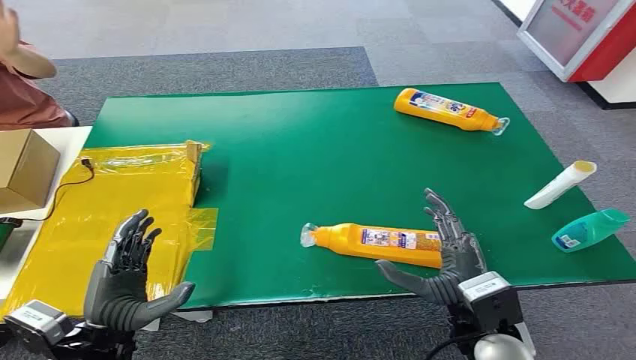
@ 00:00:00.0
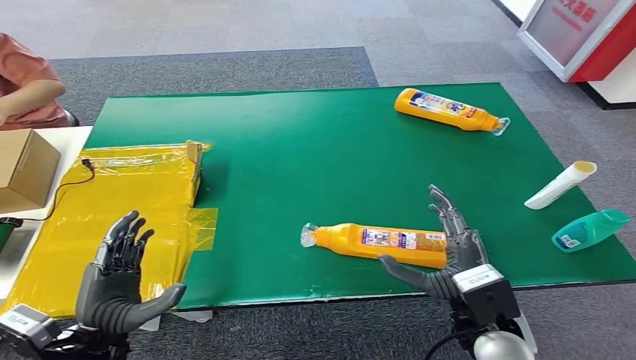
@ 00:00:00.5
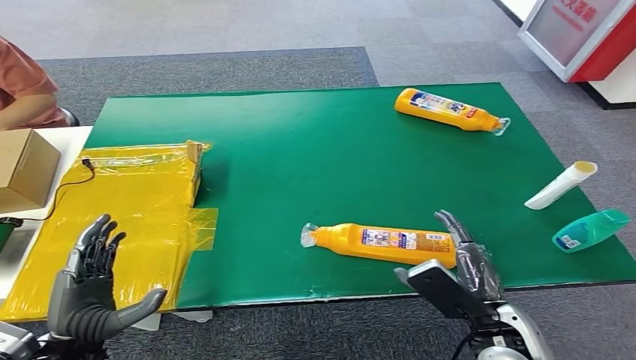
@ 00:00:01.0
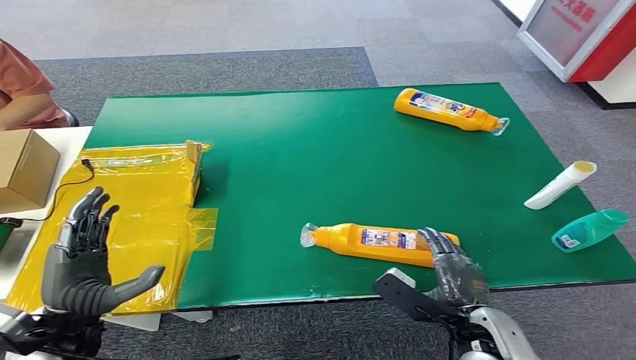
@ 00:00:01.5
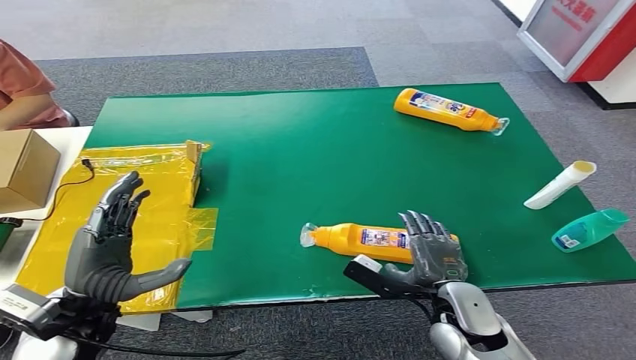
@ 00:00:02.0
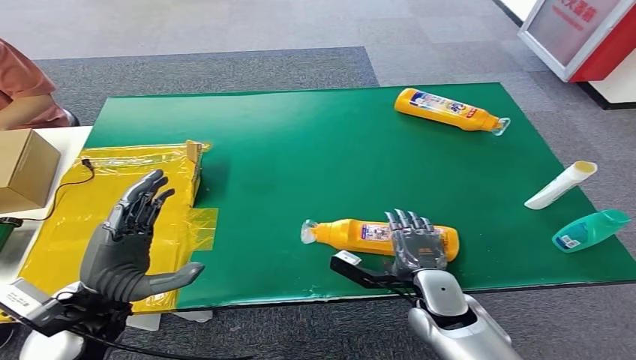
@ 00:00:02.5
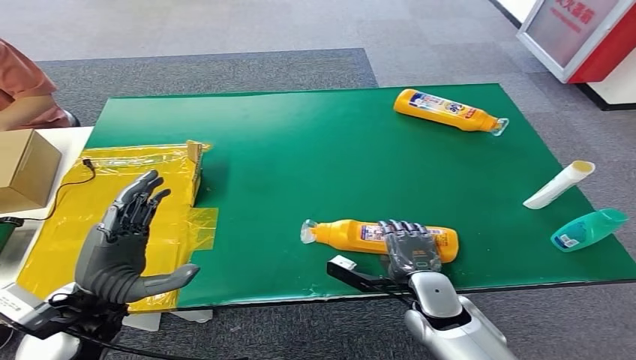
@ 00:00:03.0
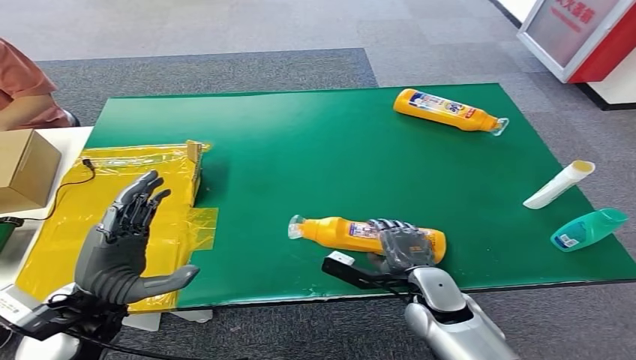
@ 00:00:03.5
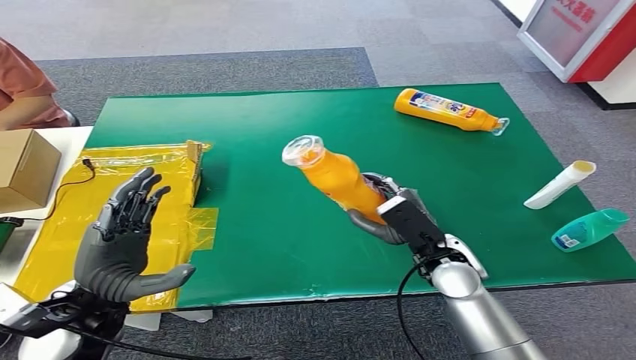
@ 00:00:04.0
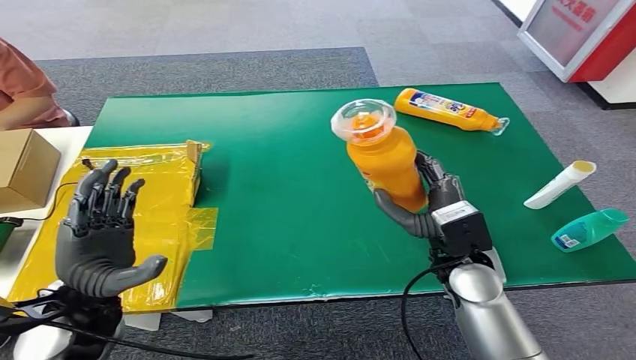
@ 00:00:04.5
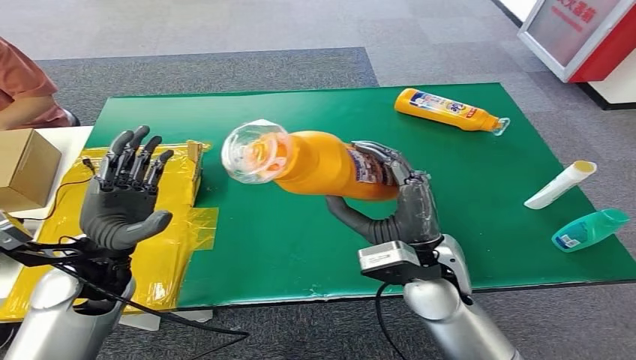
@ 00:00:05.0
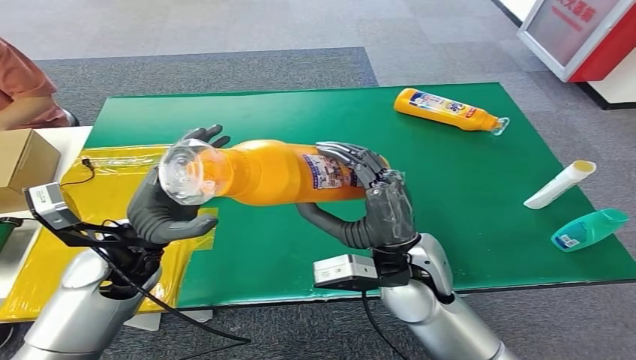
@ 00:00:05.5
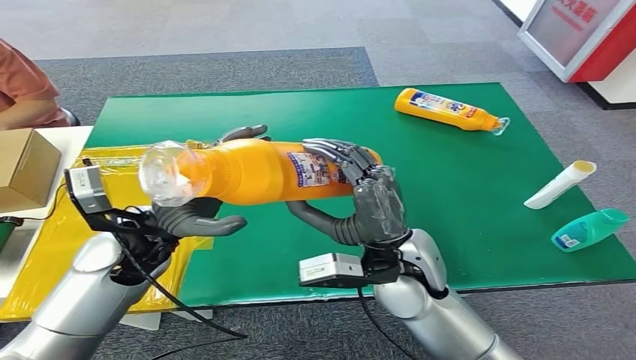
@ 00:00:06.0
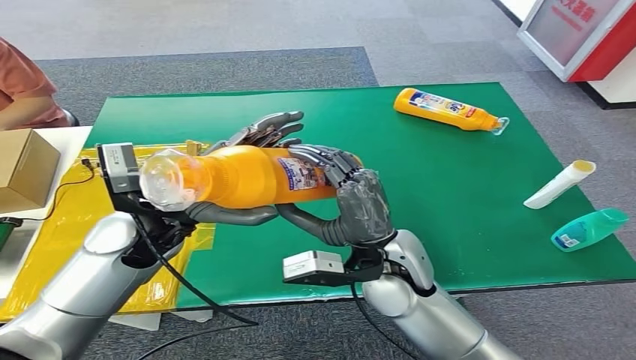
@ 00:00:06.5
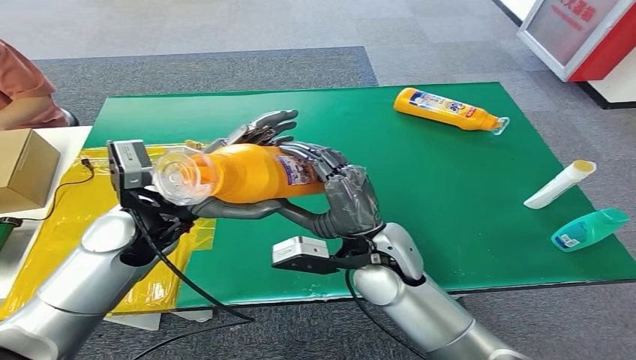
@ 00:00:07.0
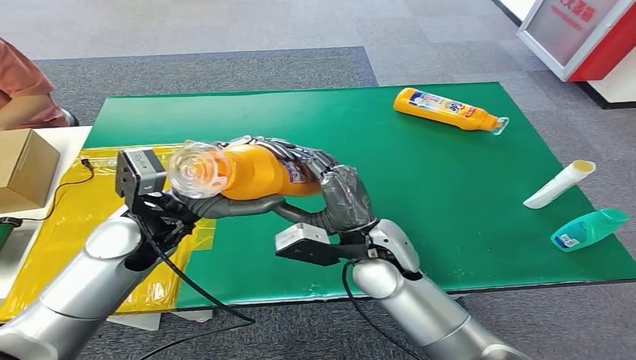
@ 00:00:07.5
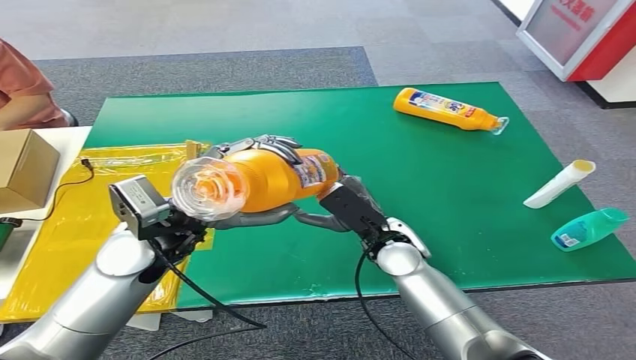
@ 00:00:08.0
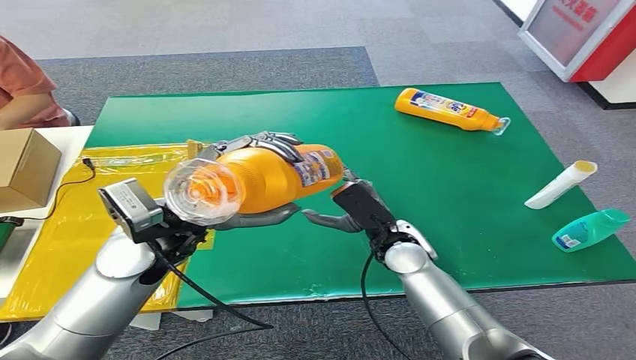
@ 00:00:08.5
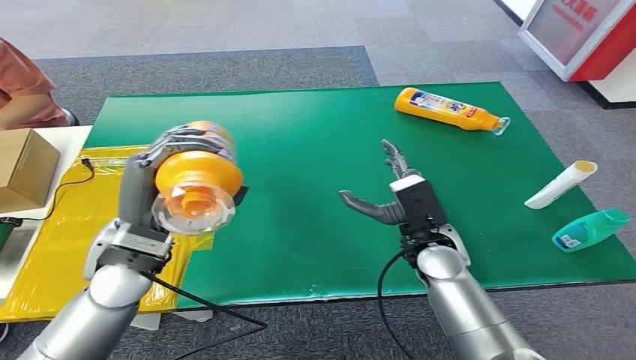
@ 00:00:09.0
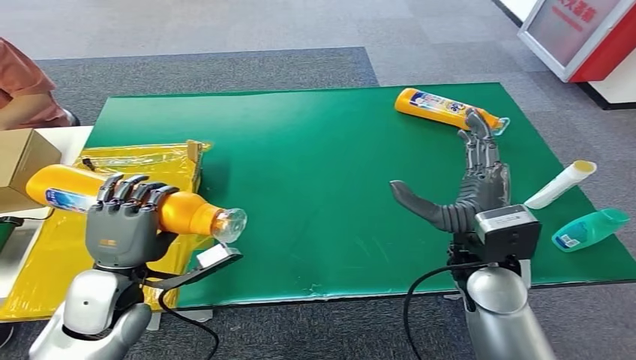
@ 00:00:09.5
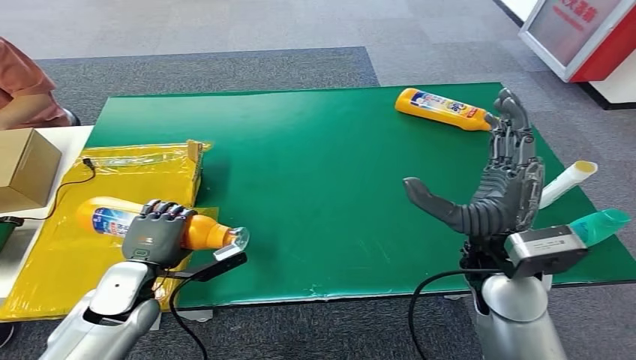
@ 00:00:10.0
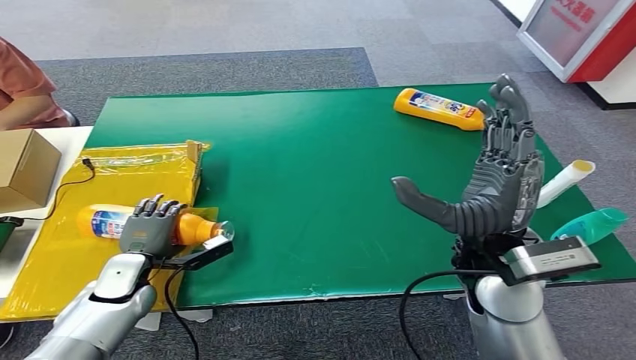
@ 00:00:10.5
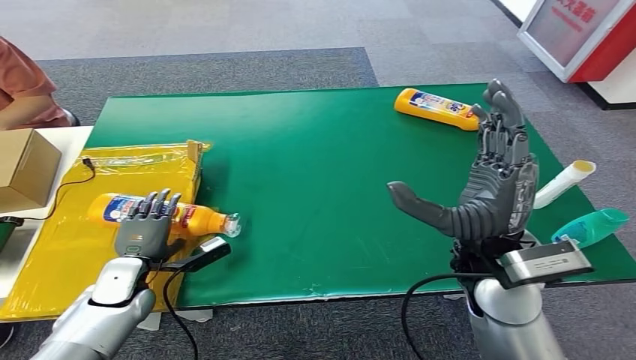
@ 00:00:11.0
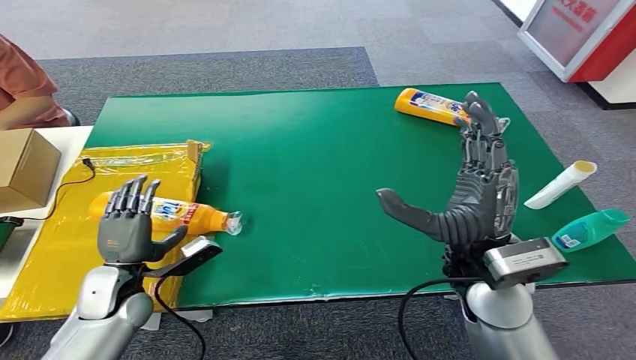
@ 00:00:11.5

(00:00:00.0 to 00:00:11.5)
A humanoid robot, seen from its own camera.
Step, 00:00:00.0 - 00:00:04.0: Pick up the bottle from the table.
Step, 00:00:04.5 - 00:00:11.5: Turn the bottle to the front side.
00:00:02.0 - 00:00:04.0: The right hand moves forward, roughly 10 cm.
00:00:06.0 - 00:00:07.5: The right hand moves some 5 cm.
00:00:09.5 - 00:00:11.5: The left hand is displaced downward by about 10 cm.
